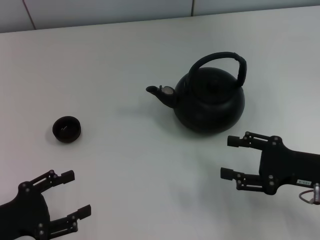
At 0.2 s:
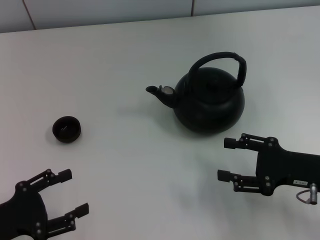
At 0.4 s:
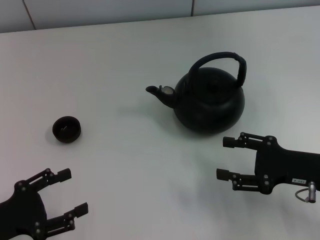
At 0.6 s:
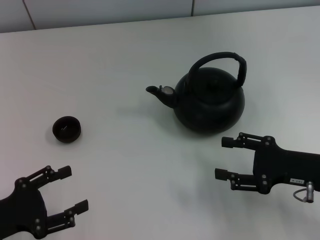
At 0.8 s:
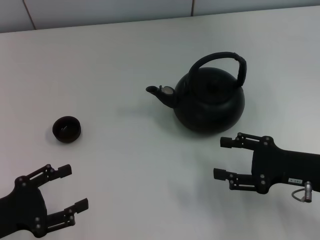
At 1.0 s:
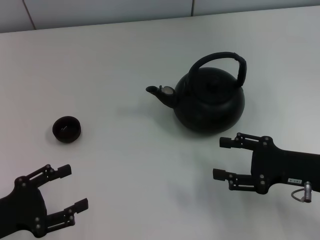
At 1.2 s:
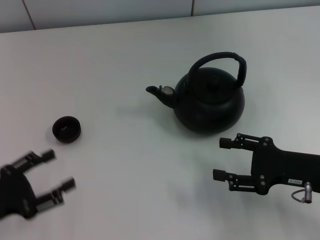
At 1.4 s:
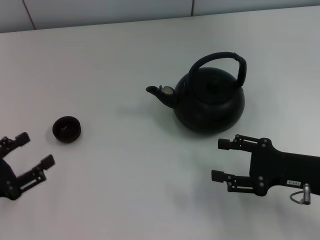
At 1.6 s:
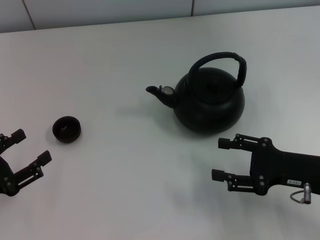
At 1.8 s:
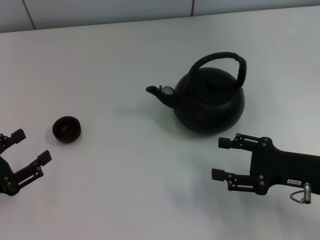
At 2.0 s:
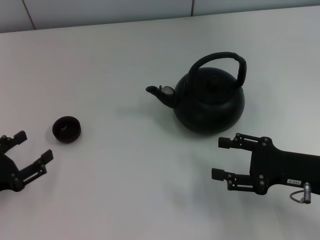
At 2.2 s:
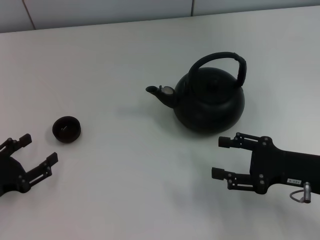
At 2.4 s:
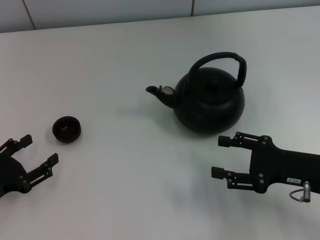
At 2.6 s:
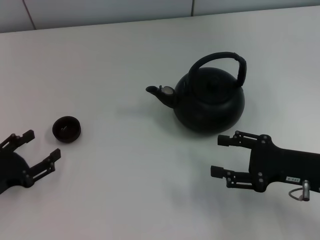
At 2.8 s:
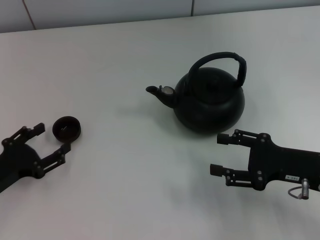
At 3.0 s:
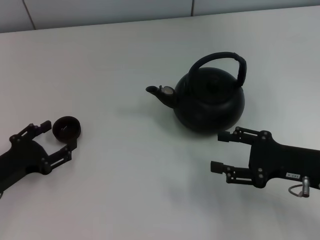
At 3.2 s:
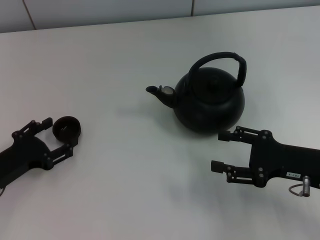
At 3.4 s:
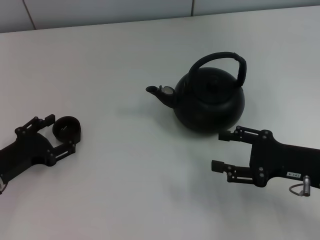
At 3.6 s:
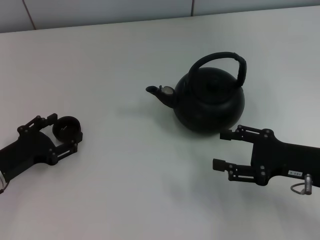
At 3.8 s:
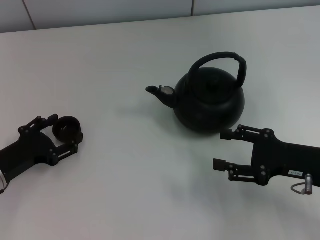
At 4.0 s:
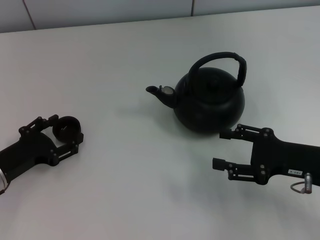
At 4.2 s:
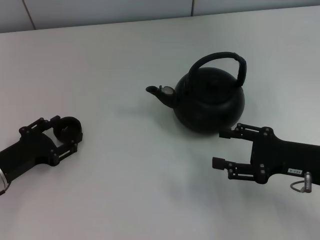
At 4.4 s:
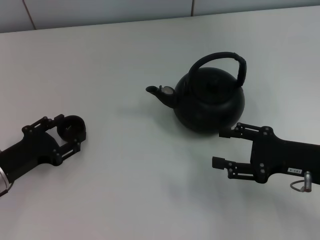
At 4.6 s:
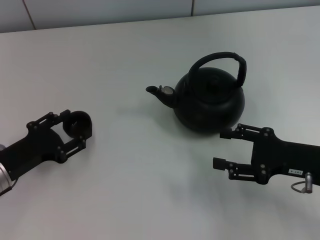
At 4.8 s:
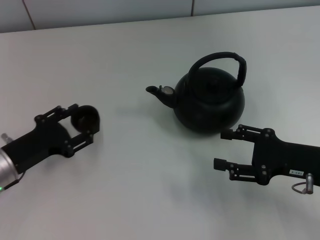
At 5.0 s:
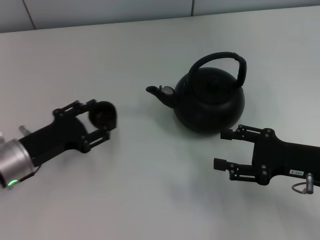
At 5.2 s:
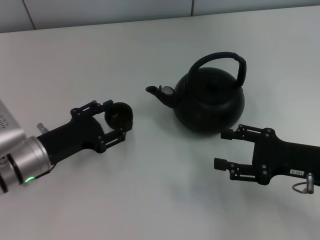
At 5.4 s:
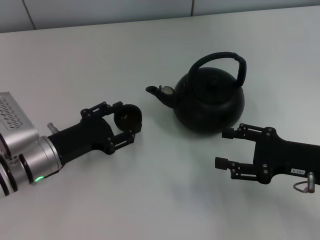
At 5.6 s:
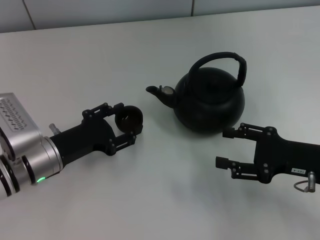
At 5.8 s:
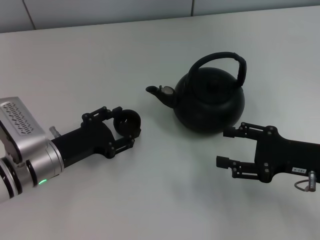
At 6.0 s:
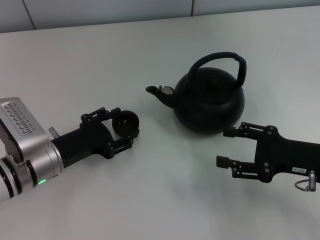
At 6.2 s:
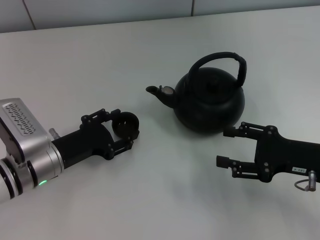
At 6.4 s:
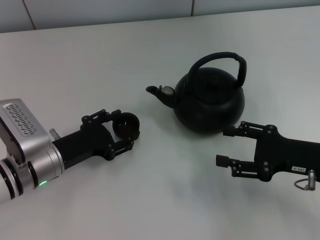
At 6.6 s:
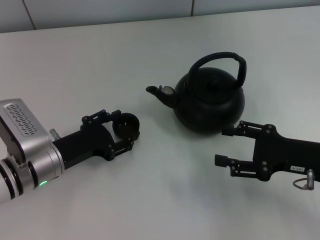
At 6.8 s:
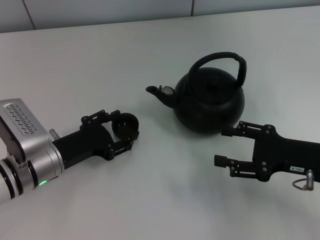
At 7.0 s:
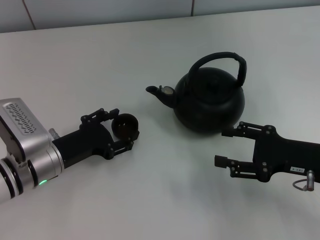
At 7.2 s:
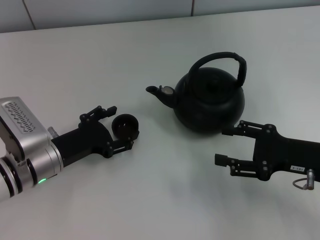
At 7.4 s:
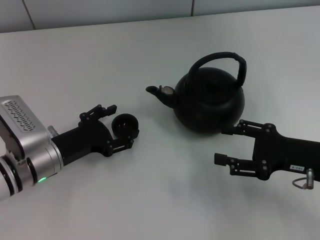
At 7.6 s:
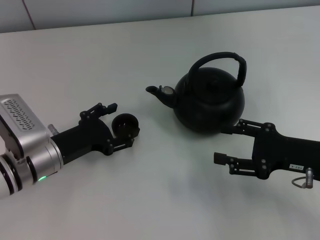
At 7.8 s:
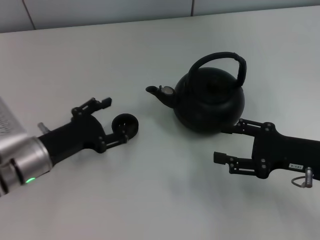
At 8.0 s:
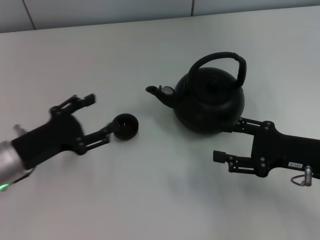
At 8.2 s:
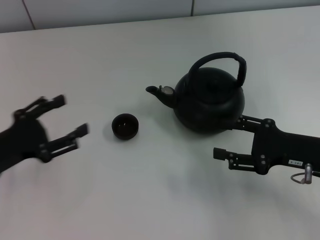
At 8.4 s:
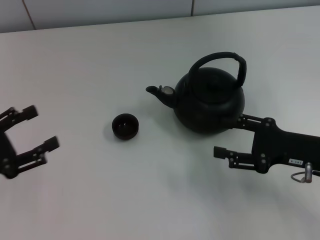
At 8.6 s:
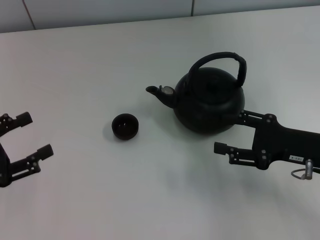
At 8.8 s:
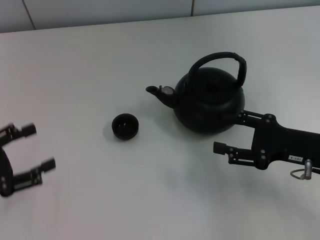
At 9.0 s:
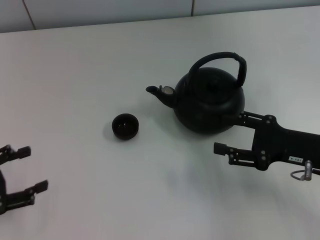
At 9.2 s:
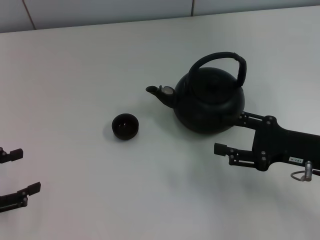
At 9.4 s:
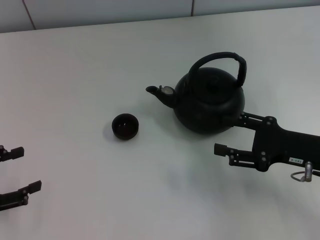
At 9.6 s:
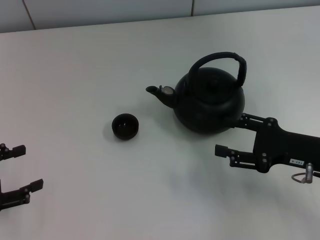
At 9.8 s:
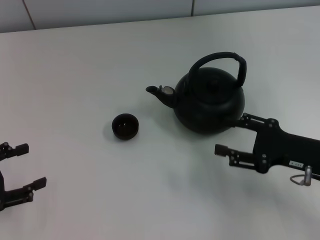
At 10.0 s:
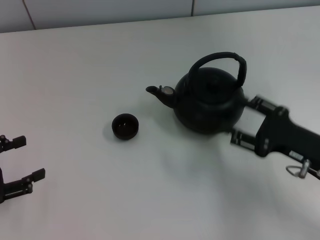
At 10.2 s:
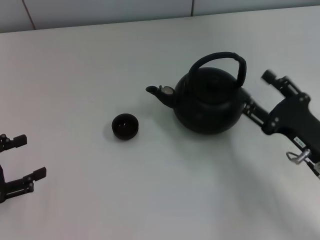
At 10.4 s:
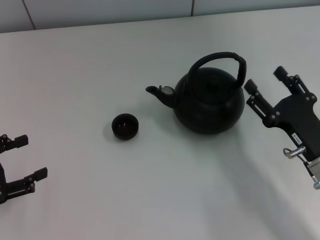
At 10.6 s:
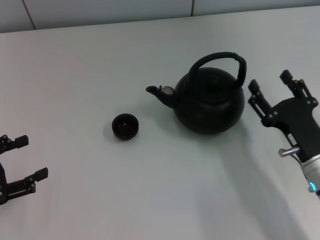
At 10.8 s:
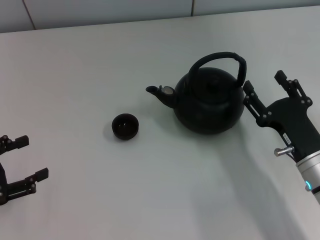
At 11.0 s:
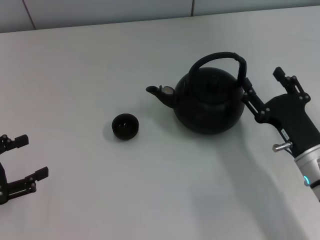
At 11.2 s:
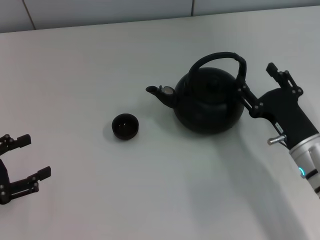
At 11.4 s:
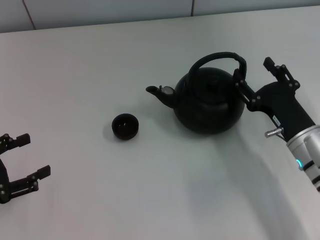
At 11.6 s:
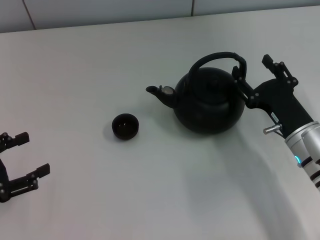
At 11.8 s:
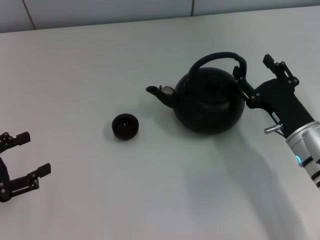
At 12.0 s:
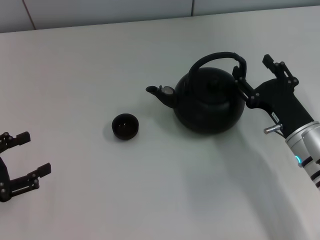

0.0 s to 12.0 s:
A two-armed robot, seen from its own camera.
Task of the whole recording: Grasp the handle of the teapot with one hand and pour tea into the teacup.
Step, 0.0 to 4.6 s: Pick up the teacup with the left gripper.
Step, 4.8 to 7.8 s: Place the teacup in the center of view with the left gripper.
1.6 to 3.0 s: The left gripper ends up about 5 cm from where it was.
3.0 to 4.4 s: The left gripper closes up.
4.4 to 6.0 s: The left gripper is displaced to the right by roughly 10 cm.
6.0 to 7.6 s: The left gripper opens up.
7.6 to 9.0 s: The left gripper goes about 15 cm to the left and backward.
9.0 to 10.4 s: The right gripper changes place by approximately 5 cm.
10.4 to 12.0 s: The grippers stay close to where they were, moving slightly.

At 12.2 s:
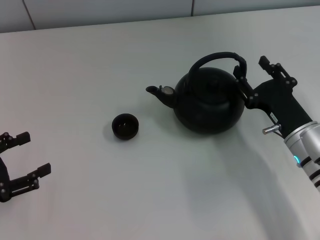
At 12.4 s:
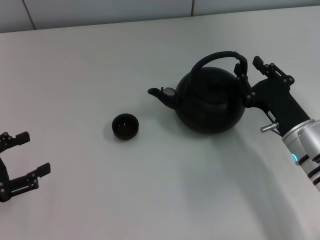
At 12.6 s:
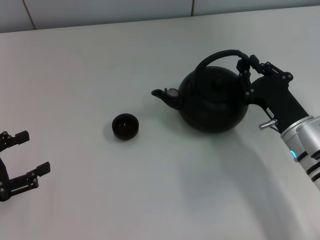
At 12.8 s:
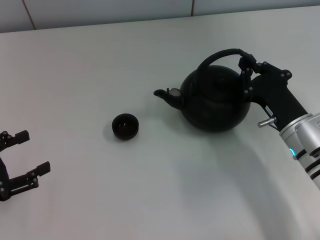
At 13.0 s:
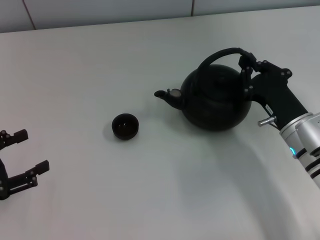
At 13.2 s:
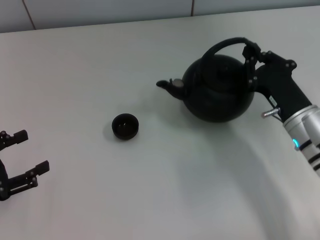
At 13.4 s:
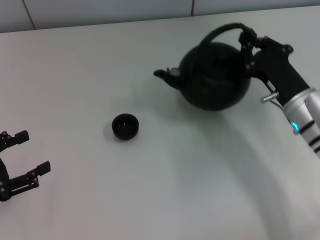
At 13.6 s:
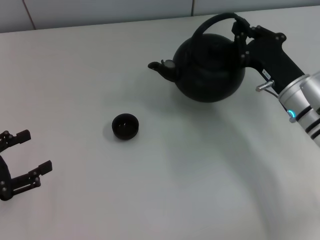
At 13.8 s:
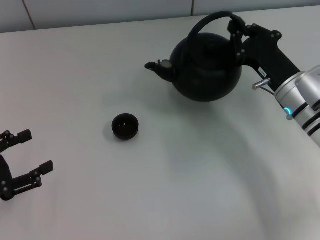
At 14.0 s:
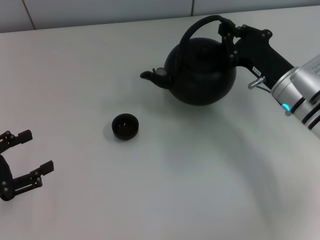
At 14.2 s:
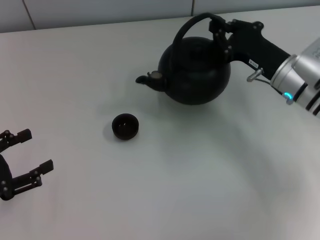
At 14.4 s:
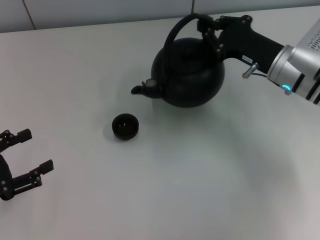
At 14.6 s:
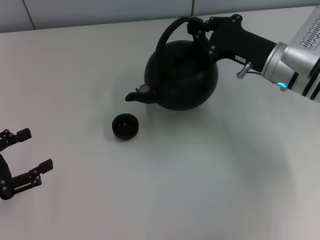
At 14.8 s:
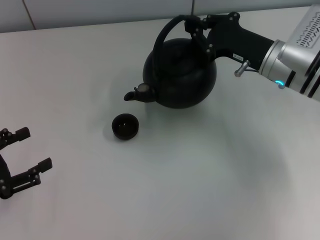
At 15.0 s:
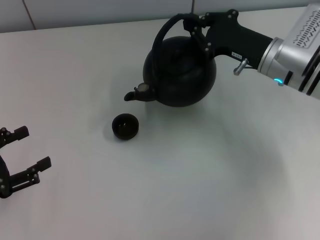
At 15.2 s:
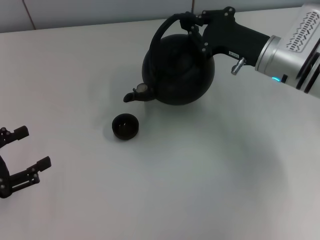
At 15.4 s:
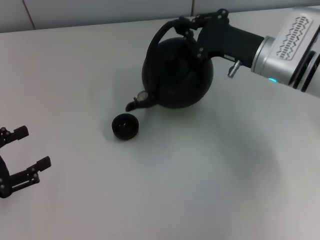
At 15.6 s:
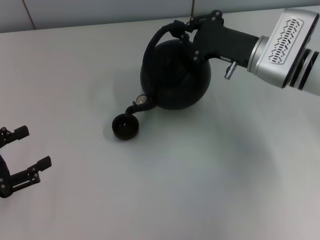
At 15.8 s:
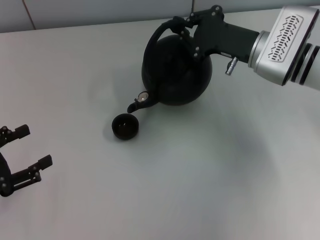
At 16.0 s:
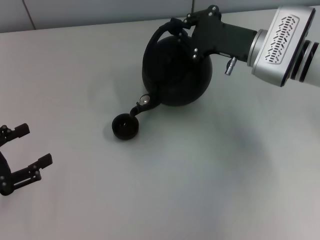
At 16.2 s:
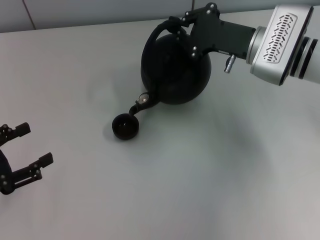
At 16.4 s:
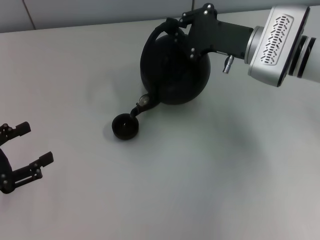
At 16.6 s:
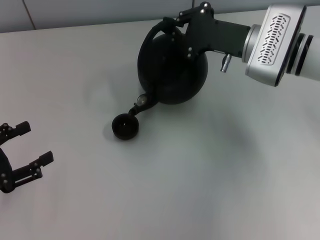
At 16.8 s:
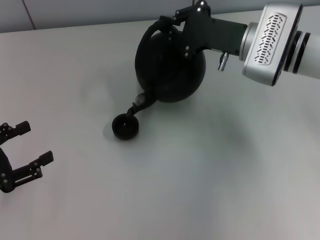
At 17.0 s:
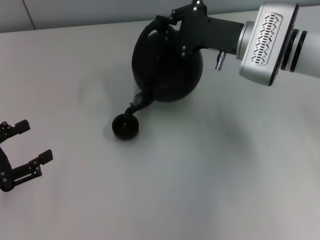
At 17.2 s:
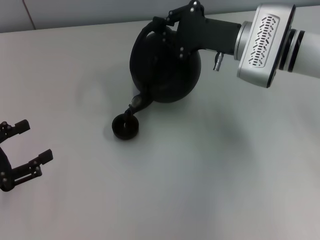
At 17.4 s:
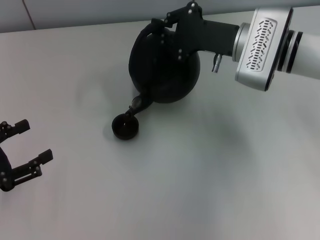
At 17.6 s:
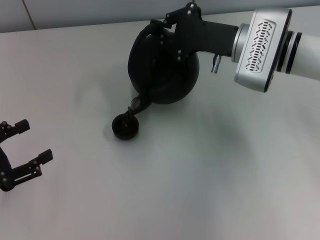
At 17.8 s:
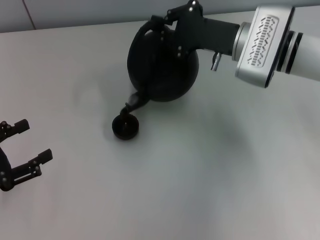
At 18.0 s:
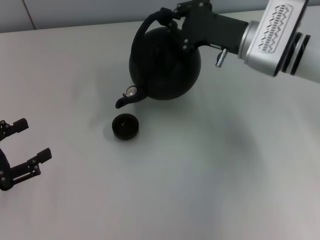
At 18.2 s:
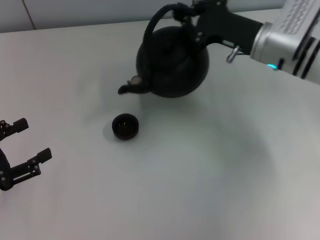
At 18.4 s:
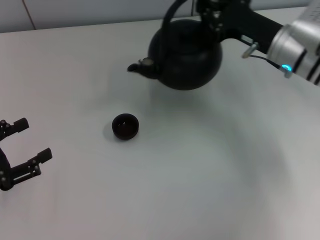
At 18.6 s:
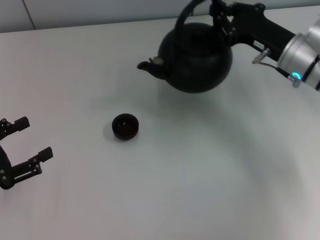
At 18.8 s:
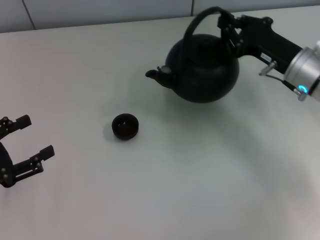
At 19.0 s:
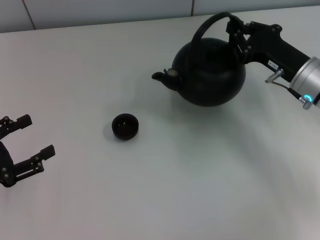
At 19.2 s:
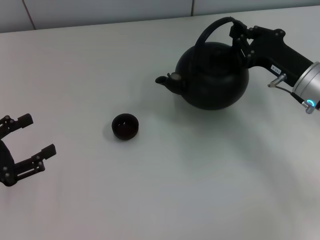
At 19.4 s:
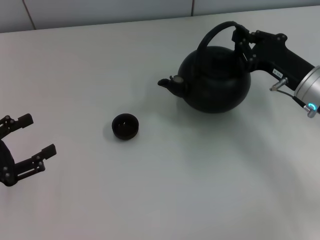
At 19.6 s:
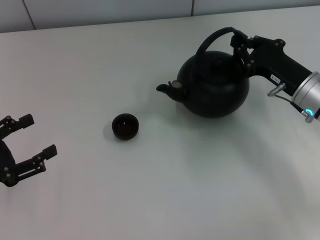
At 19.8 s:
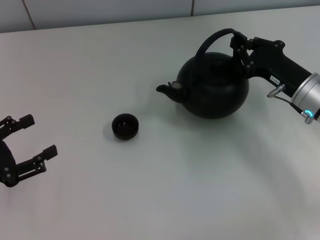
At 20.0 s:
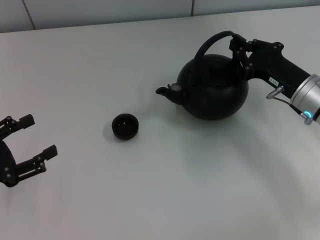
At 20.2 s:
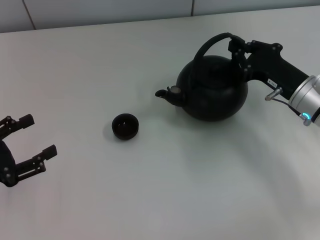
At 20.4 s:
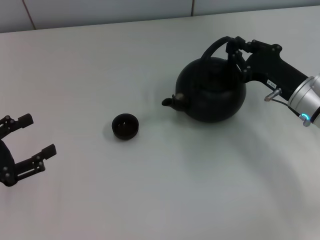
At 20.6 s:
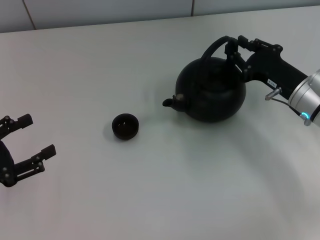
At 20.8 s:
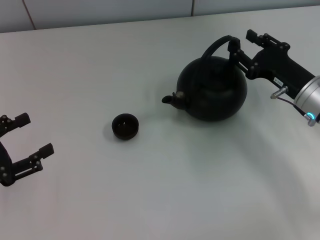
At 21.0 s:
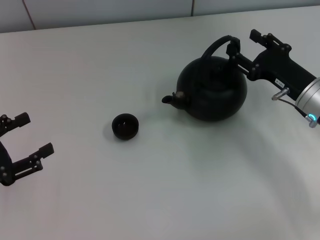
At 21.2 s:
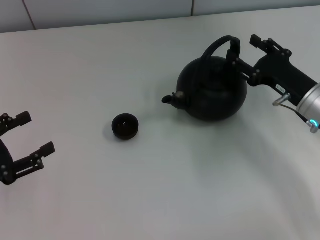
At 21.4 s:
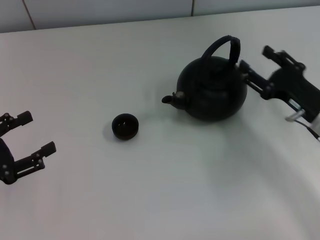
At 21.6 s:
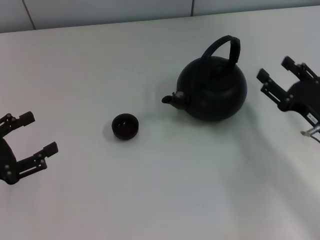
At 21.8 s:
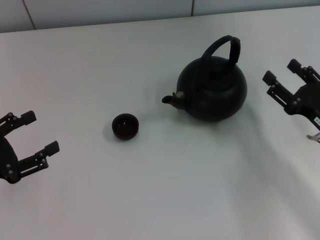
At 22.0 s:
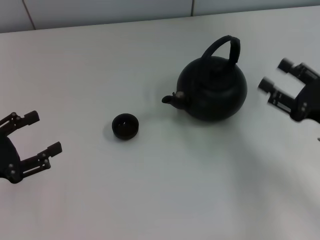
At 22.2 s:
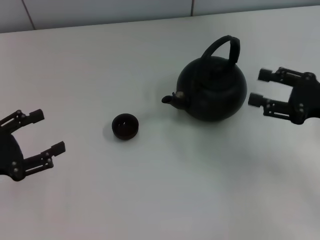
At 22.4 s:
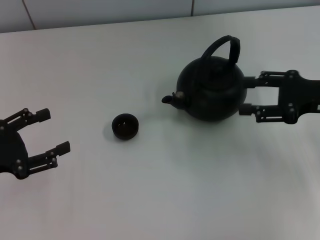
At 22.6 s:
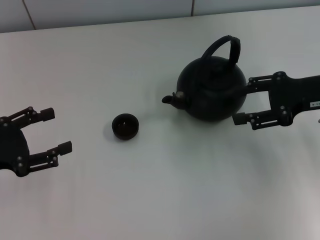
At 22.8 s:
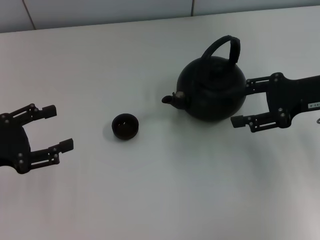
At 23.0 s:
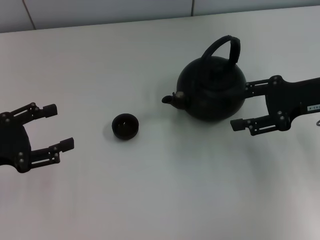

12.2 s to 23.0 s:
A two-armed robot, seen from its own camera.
Task of the whole recording: Grasp the handle of the teapot with one hand and pour tea into the teacup.
Step, 18.4 to 21.4 s: Put down the teapot with the right gripper.
12.2 to 13.8 s: The right gripper moves forward, roughly 5 cm, and closes up.
13.8 to 15.2 s: The right gripper is displaced forward by some 5 cm.
18.4 to 20.0 s: The right gripper moves backward and downward, some 10 cm.
20.0 to 21.4 s: The right gripper changes place by about 5 cm, and opens its fingers.
21.4 to 23.0 s: The right gripper travels upward by about 10 cm.
